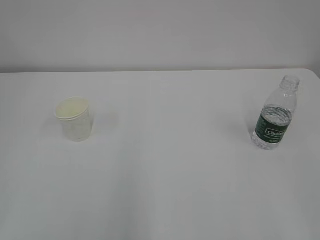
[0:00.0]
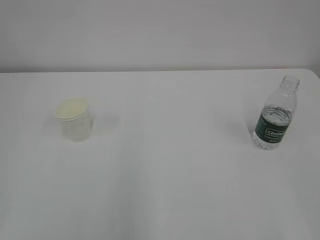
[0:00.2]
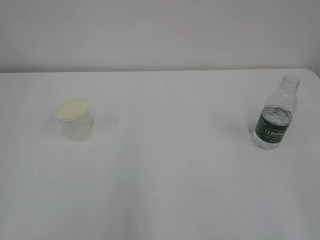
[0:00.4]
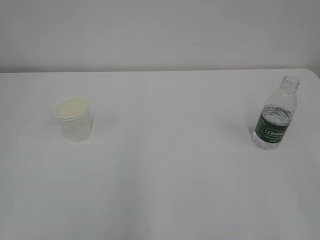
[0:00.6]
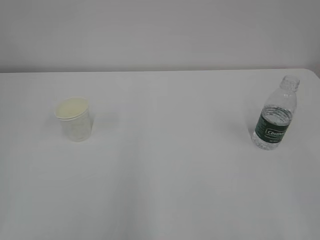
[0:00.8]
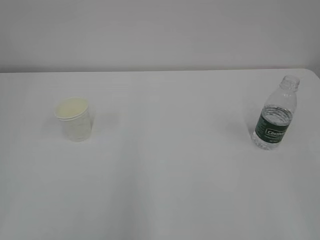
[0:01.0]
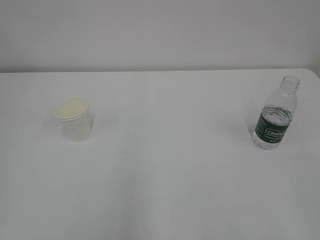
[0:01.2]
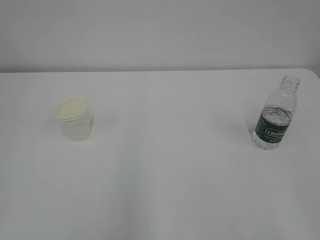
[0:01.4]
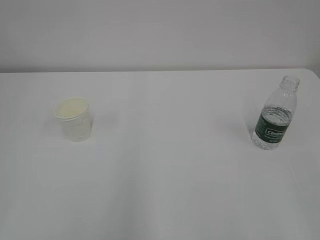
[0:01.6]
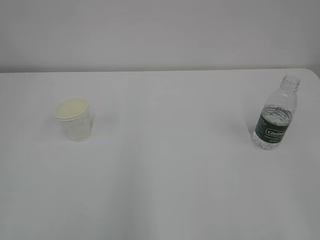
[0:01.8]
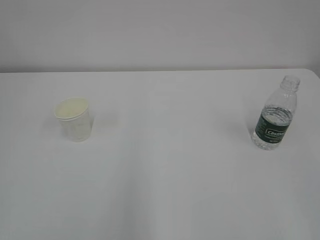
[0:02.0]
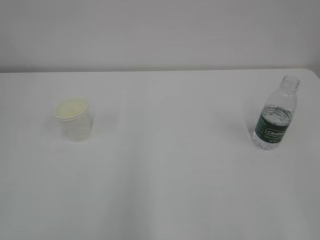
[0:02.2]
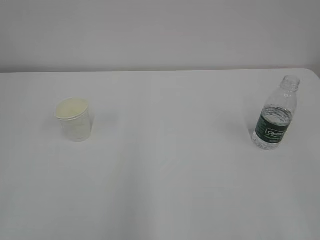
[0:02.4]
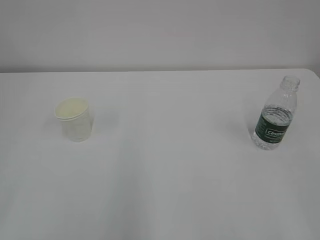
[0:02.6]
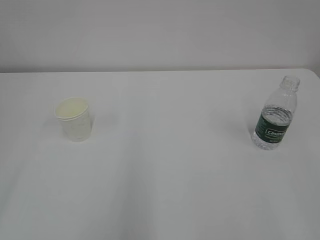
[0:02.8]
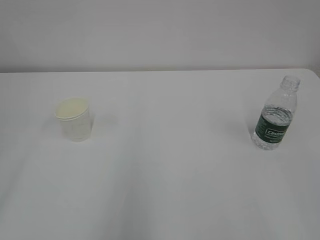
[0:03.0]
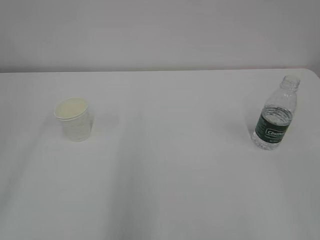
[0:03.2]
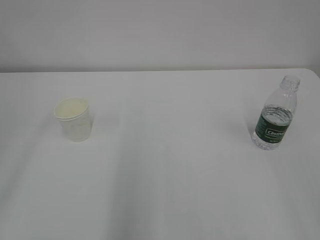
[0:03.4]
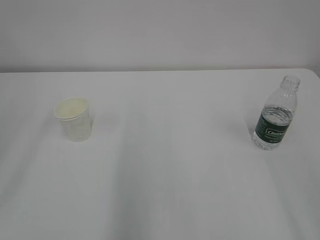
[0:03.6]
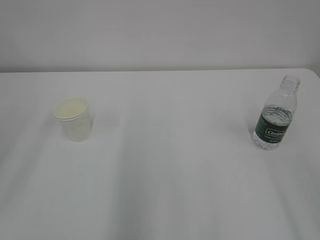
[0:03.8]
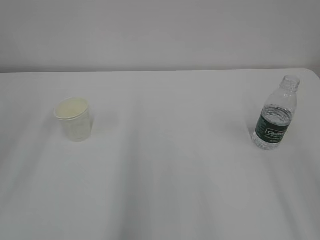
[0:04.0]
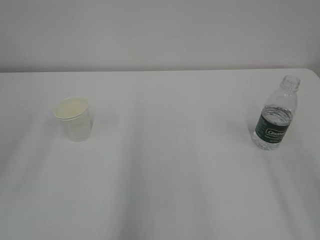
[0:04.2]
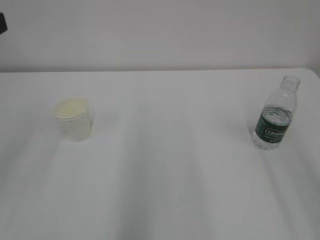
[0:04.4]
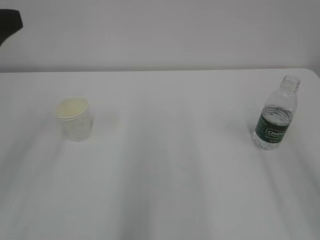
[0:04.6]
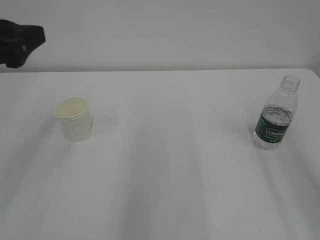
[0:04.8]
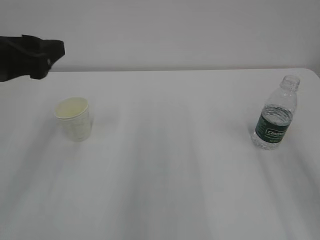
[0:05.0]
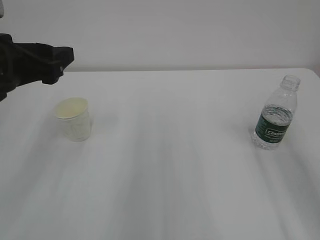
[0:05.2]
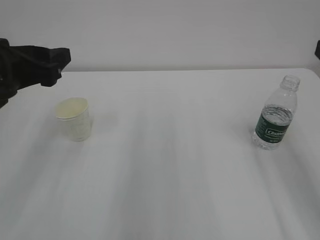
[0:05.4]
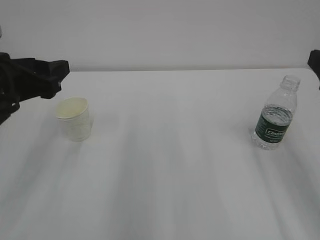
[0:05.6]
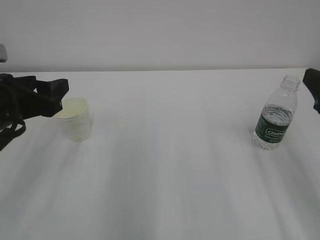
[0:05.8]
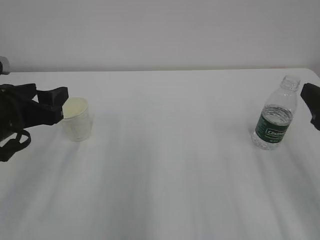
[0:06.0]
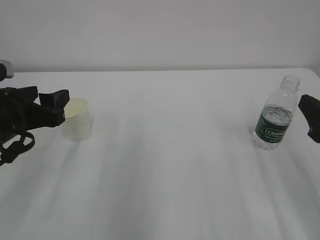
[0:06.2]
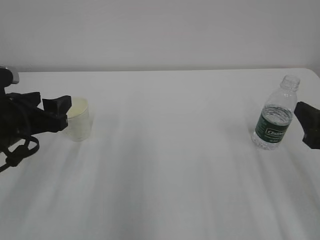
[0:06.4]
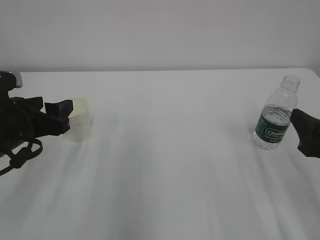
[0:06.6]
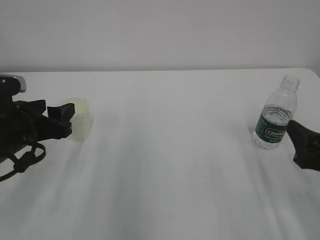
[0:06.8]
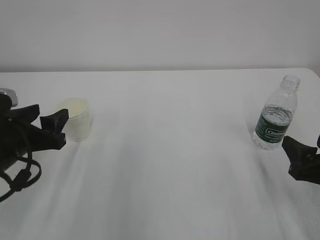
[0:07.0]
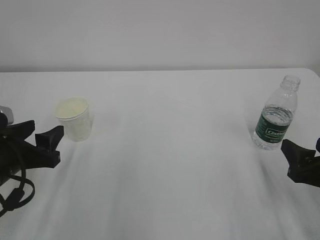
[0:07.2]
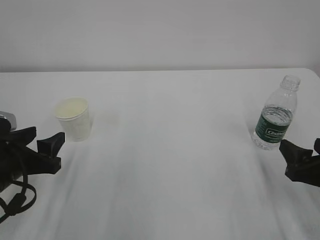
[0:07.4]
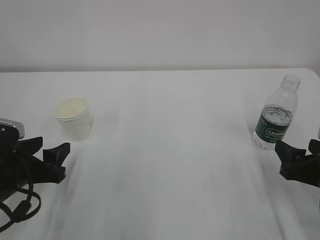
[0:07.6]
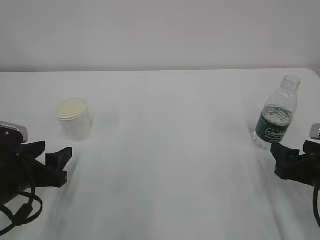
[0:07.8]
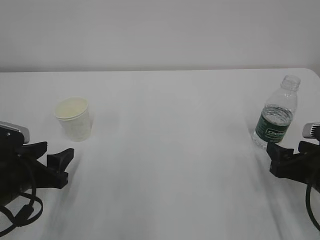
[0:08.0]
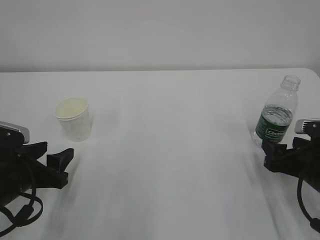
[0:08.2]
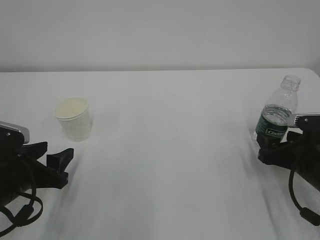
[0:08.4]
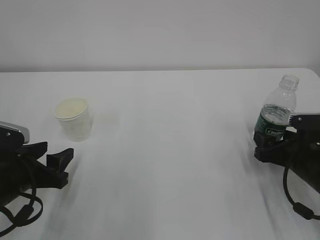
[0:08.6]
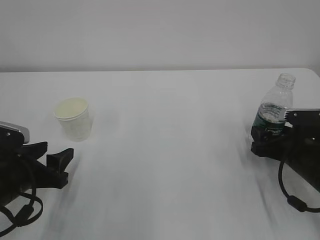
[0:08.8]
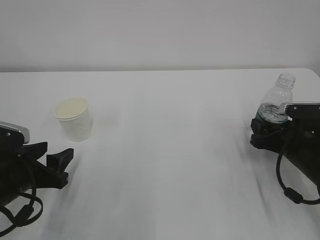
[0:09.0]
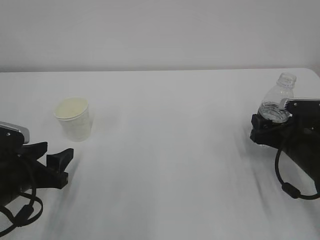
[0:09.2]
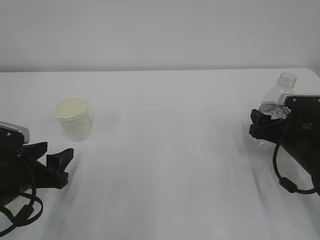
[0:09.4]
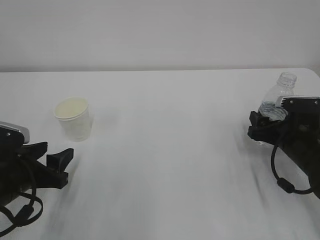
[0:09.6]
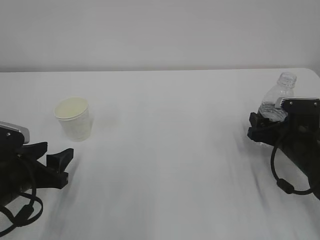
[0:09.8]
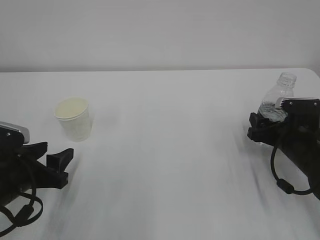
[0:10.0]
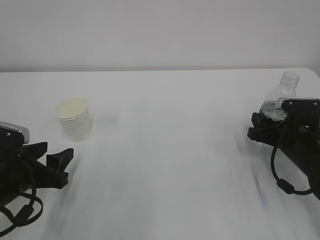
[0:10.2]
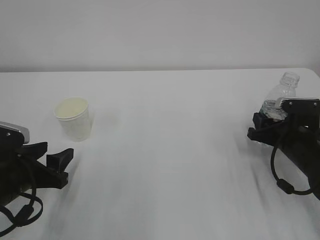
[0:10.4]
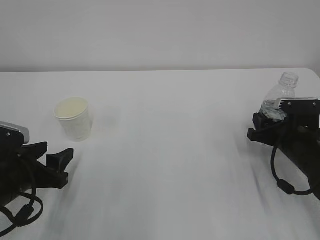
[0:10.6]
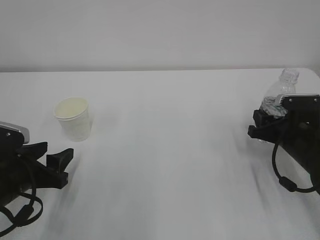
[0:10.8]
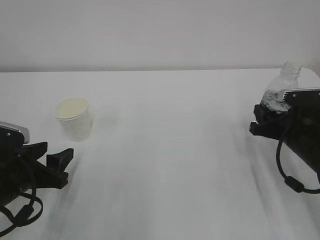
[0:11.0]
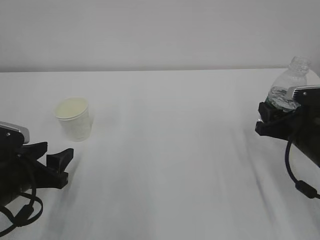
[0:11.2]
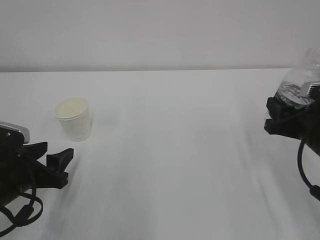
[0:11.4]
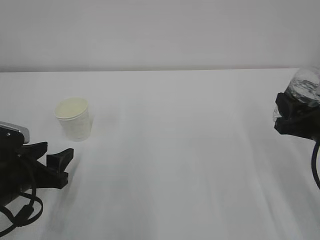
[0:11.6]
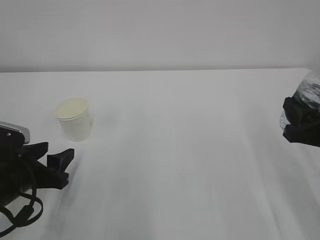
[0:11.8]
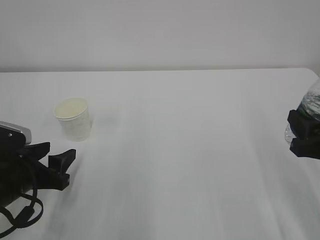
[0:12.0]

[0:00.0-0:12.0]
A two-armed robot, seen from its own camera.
0:04.4 to 0:06.0: The left gripper moves downward, some 15 cm; the right gripper heads downward and forward, covering roughly 15 cm.
0:06.0 to 0:07.6: The two grippers go roughly 10 cm downward.
0:07.6 to 0:09.0: The right gripper heads forward, covering roughly 10 cm.
0:09.0 to 0:10.4: The right gripper closes up.
0:10.4 to 0:12.0: The right gripper heads backward and upward, covering approximately 15 cm.

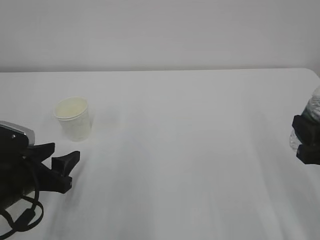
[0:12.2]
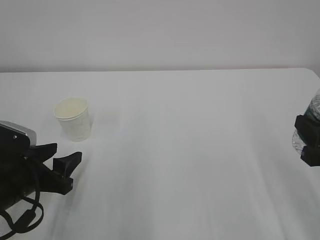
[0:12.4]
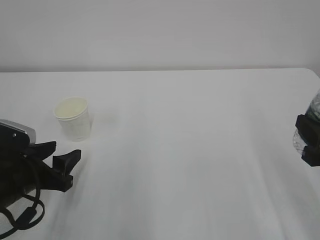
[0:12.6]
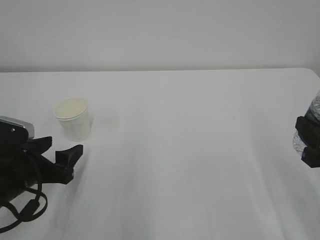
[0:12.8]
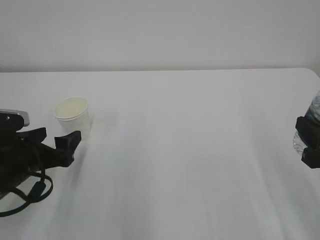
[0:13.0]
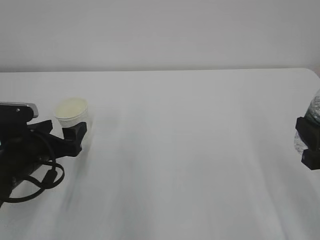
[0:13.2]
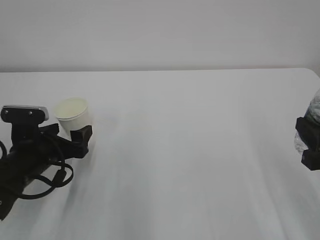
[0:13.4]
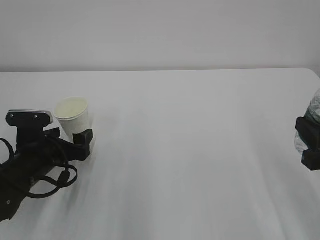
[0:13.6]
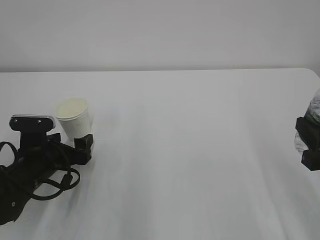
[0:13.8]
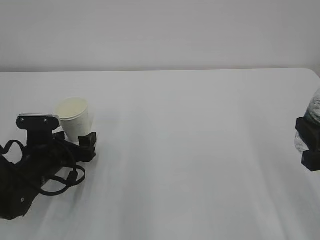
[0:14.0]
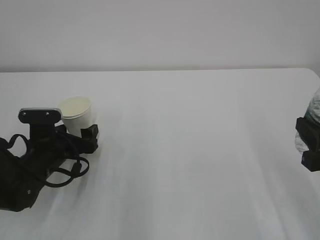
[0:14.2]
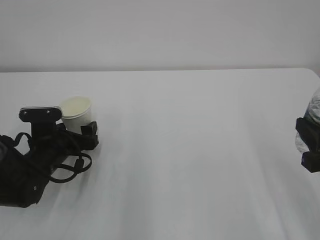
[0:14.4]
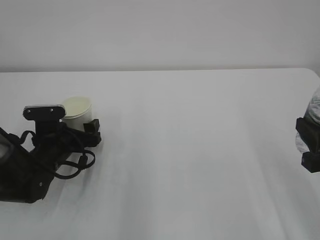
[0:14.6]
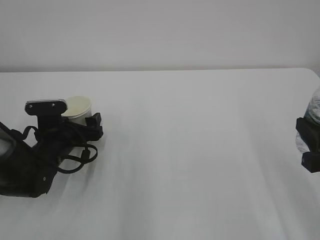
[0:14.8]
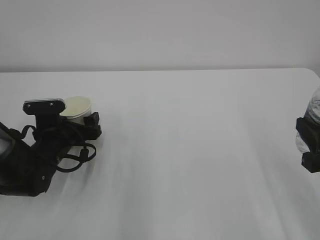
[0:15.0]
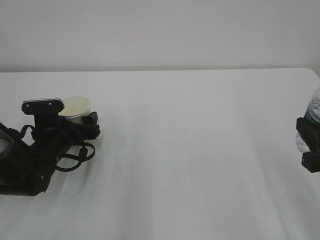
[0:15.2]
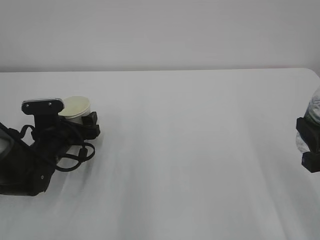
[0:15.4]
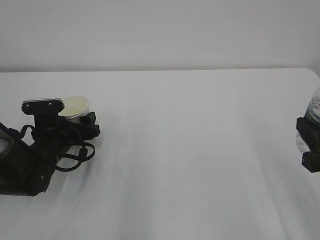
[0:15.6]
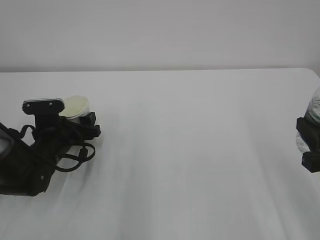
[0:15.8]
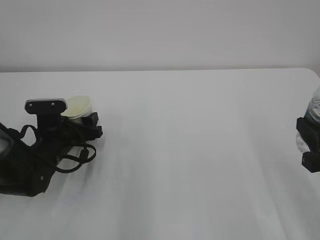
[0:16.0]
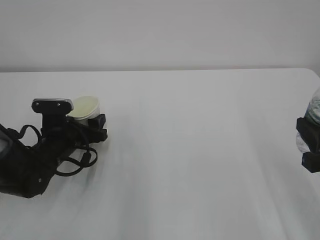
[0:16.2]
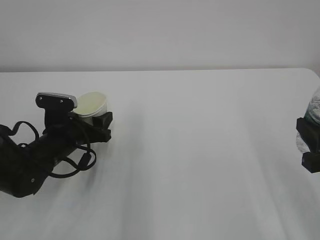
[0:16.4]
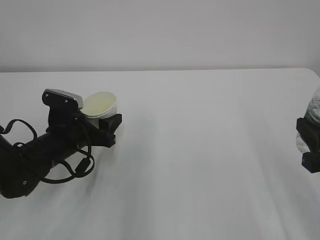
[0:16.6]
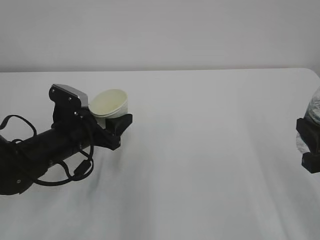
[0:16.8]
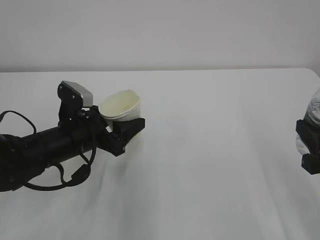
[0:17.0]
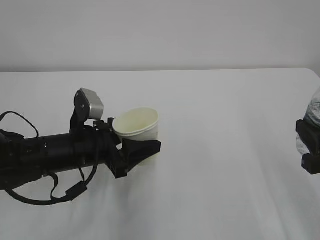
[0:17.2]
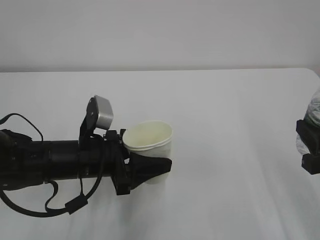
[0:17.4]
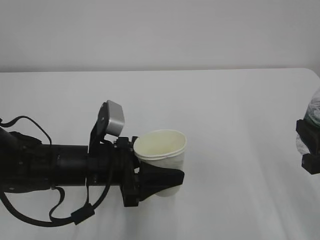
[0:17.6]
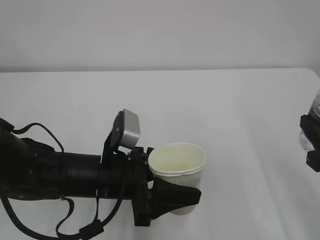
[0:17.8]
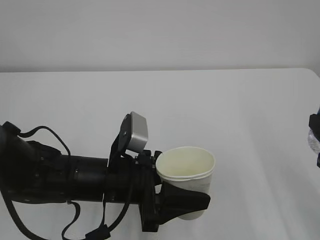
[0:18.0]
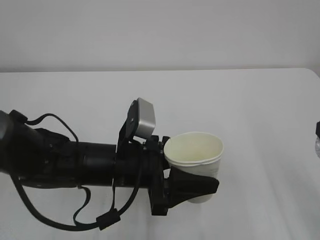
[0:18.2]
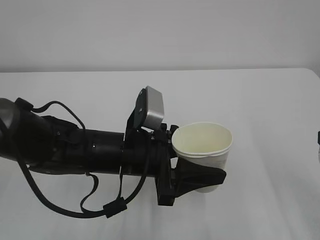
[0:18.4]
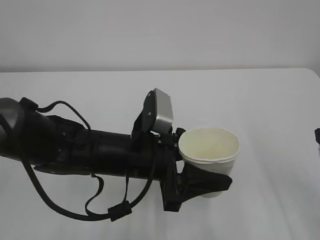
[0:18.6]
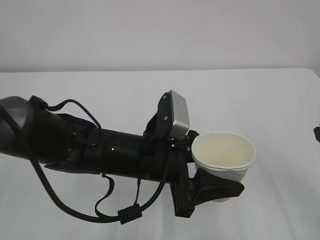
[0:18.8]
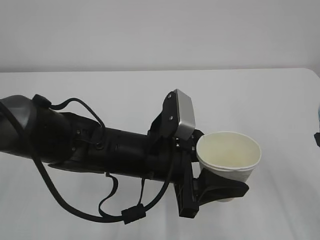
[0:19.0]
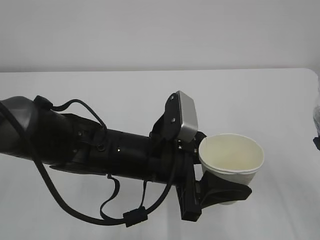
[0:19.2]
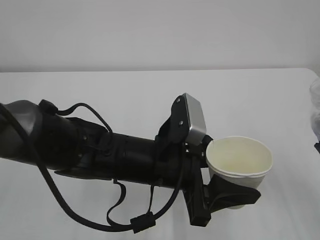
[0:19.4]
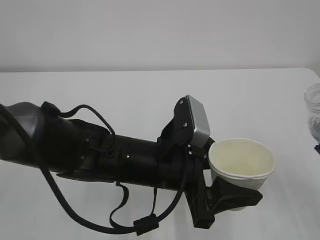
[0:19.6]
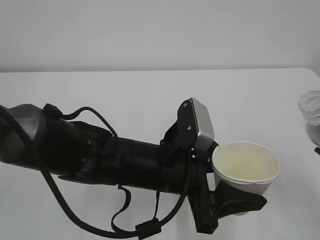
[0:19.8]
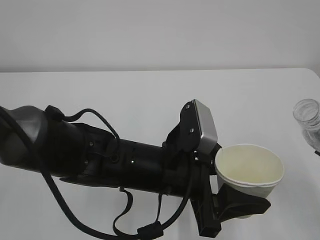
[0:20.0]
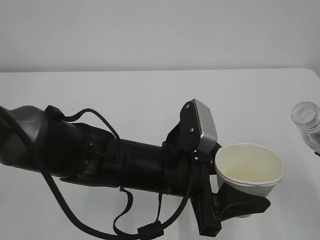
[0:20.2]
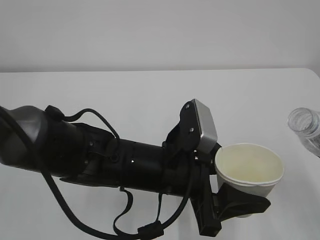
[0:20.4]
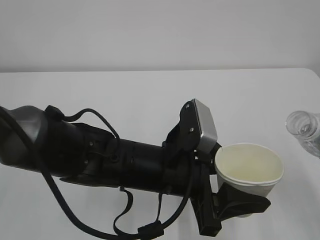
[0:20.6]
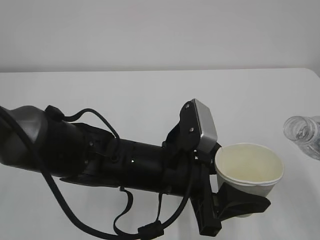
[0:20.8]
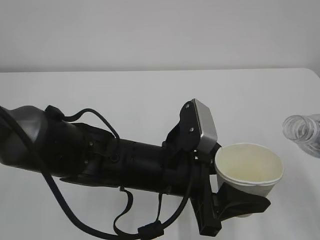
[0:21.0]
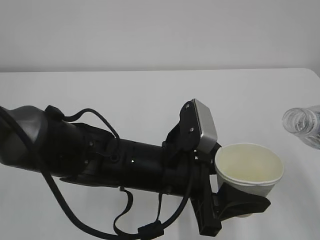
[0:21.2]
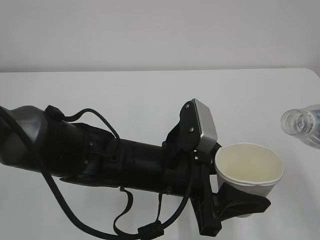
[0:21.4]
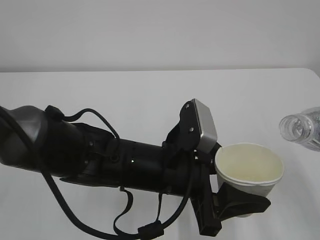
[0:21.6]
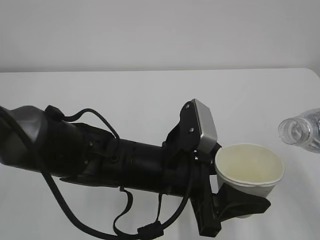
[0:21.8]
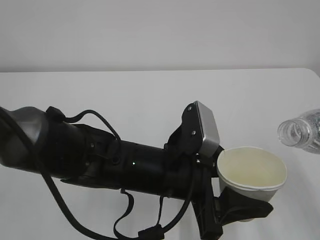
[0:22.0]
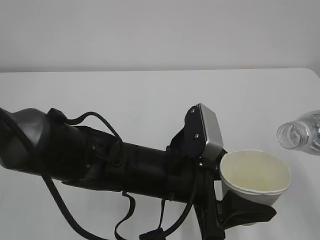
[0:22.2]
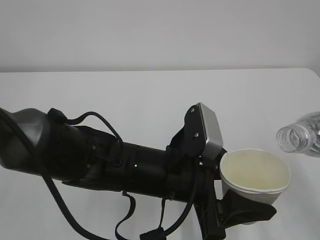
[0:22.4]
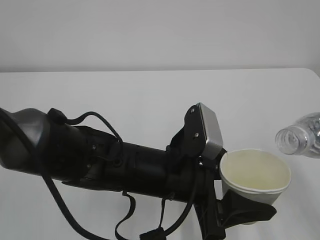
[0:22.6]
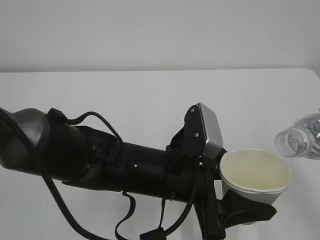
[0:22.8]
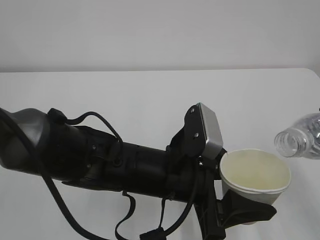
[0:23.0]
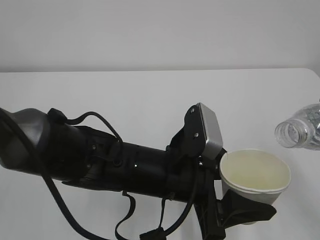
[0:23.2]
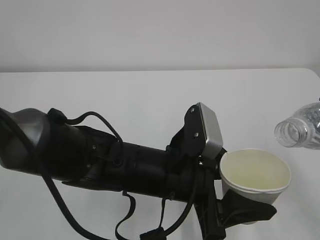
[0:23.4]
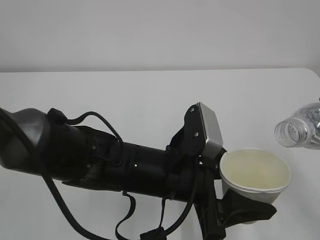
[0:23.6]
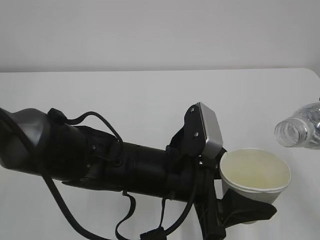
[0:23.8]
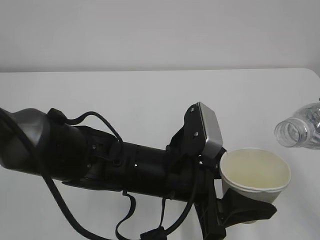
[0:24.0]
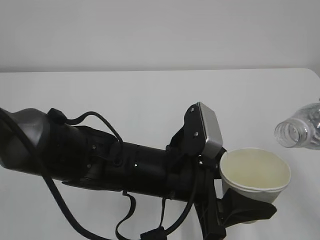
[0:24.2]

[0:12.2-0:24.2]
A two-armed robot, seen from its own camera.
0:12.2 to 0:13.8: The left gripper heads forward, covering about 5 cm, and opens up.
0:13.8 to 0:15.2: The left gripper travels forward by roughly 5 cm.
0:15.2 to 0:16.6: The left gripper closes.
0:16.6 to 0:18.2: The left gripper shifts approximately 15 cm to the right and backward.
0:18.2 to 0:19.8: The left gripper moves to the right, about 5 cm.
0:19.8 to 0:21.2: The grippers stay close to where they were, moving slightly.
0:21.2 to 0:22.6: The grippers move only a little.
0:22.6 to 0:24.2: Both grippers stay put.
